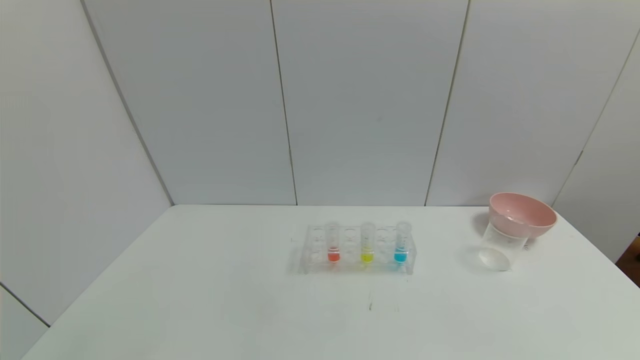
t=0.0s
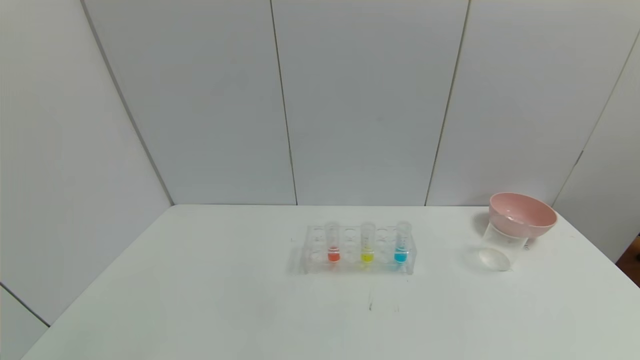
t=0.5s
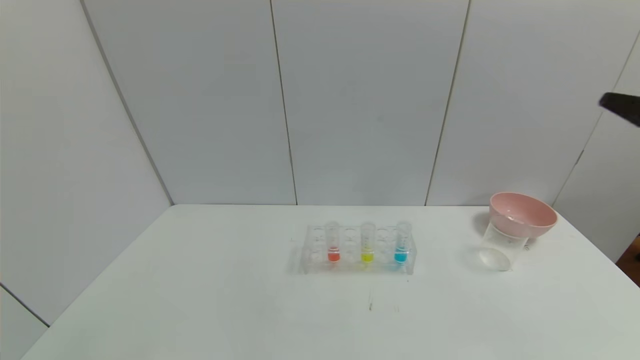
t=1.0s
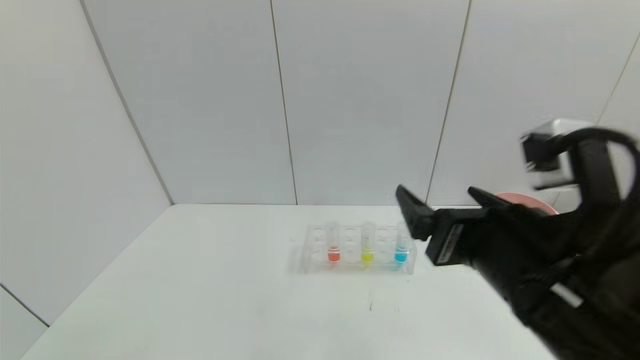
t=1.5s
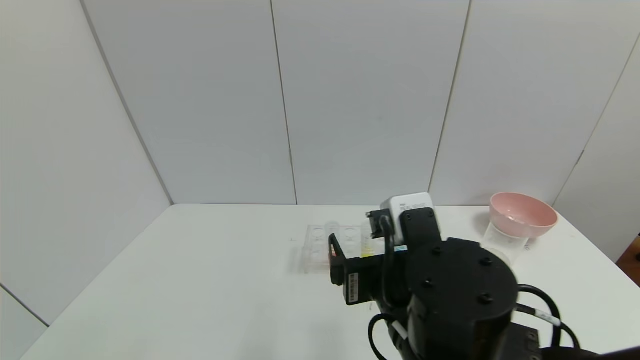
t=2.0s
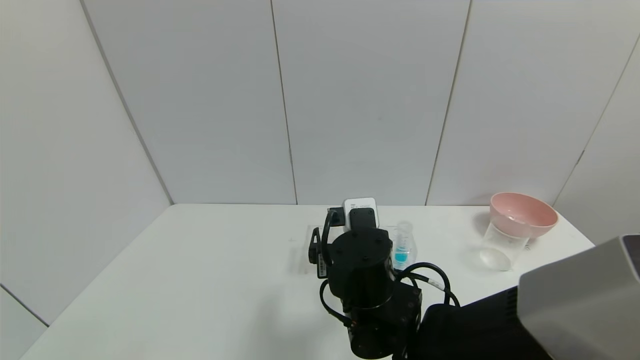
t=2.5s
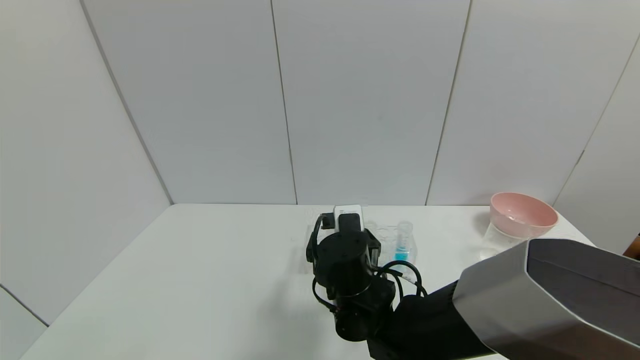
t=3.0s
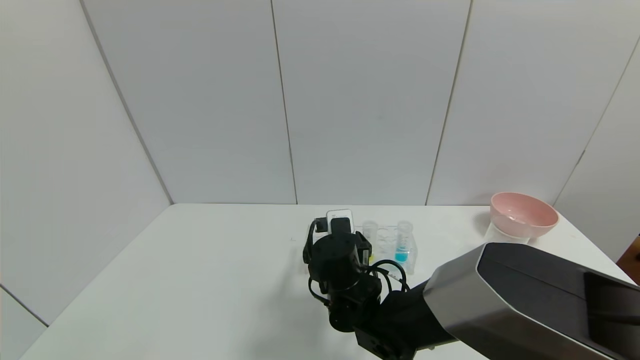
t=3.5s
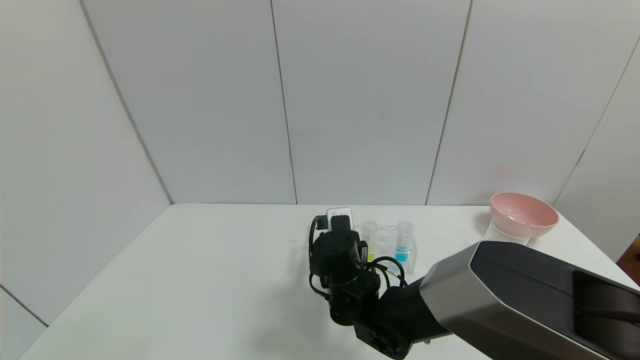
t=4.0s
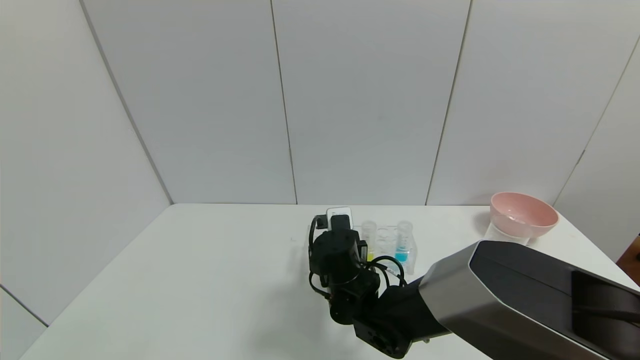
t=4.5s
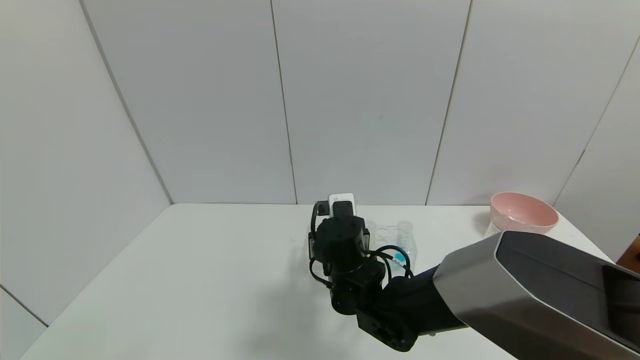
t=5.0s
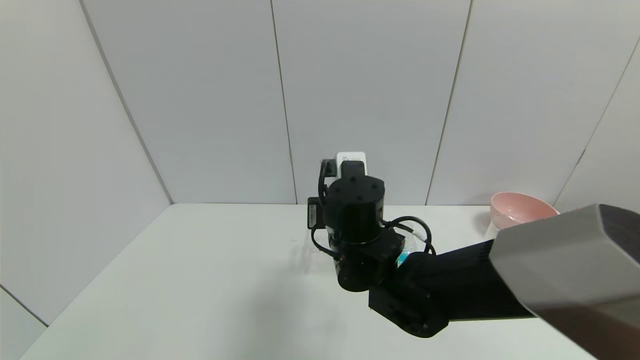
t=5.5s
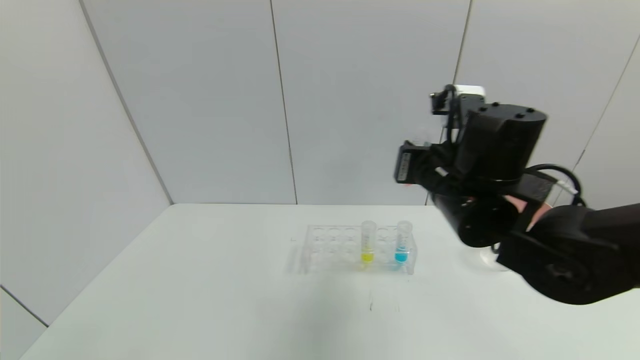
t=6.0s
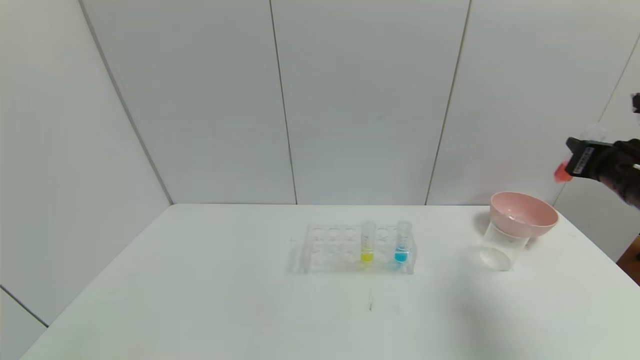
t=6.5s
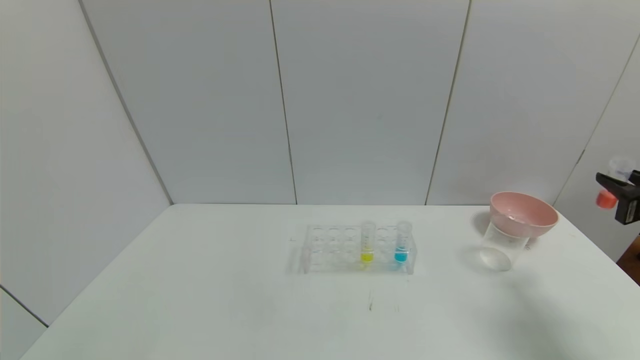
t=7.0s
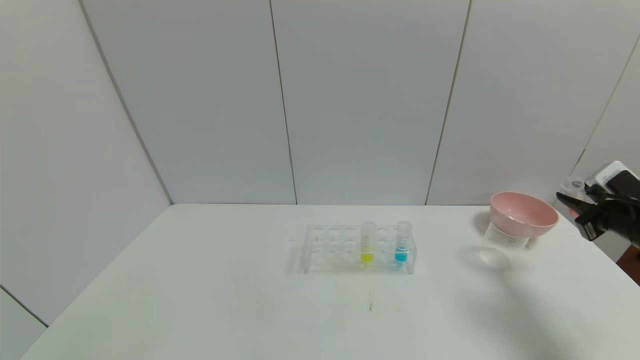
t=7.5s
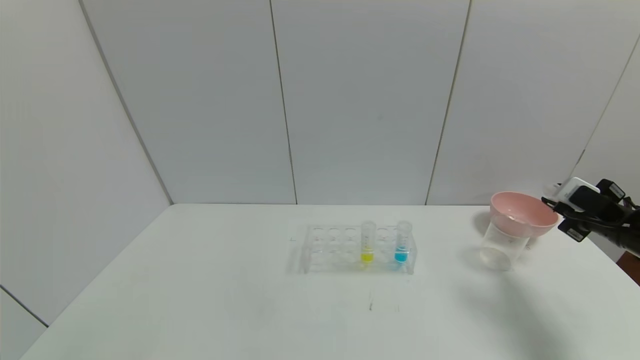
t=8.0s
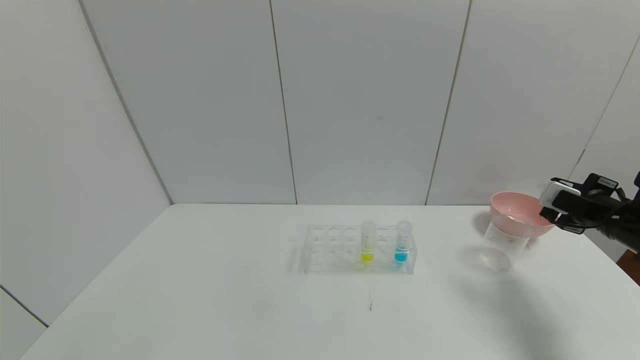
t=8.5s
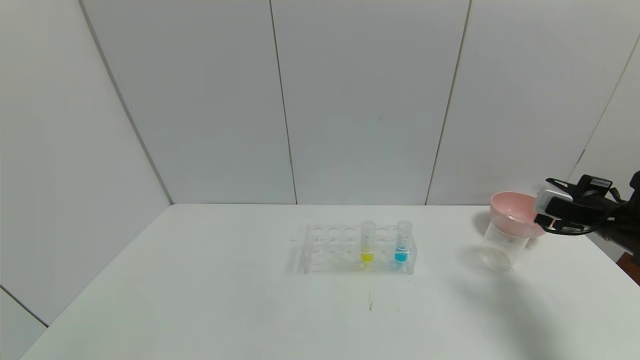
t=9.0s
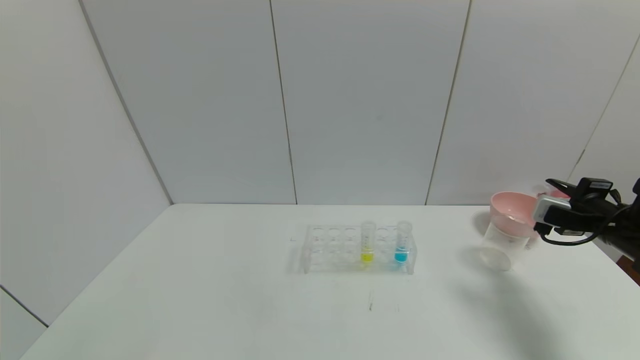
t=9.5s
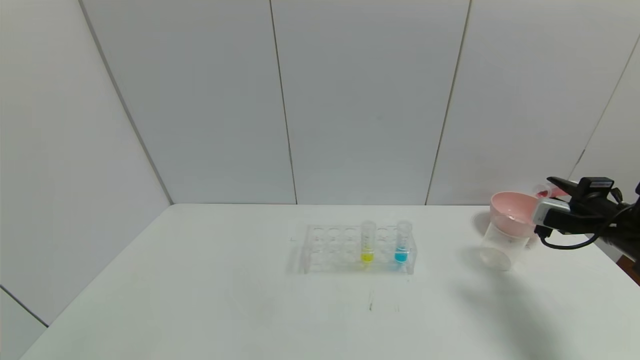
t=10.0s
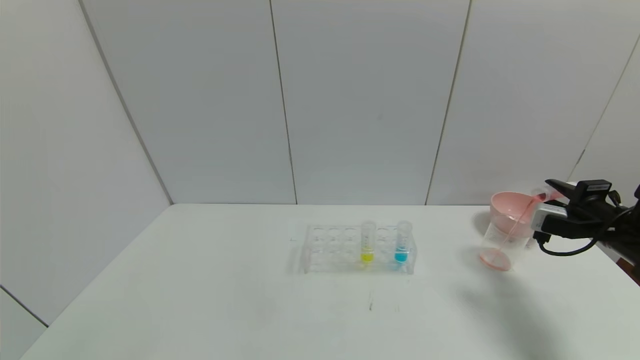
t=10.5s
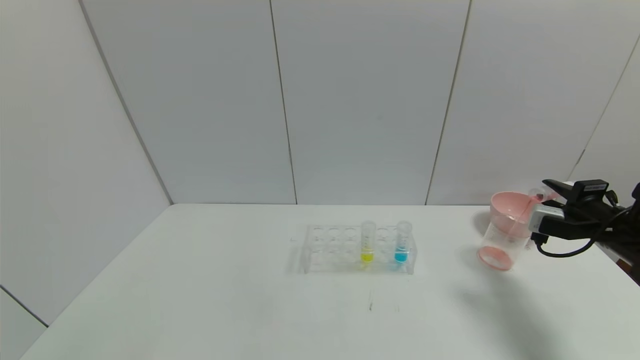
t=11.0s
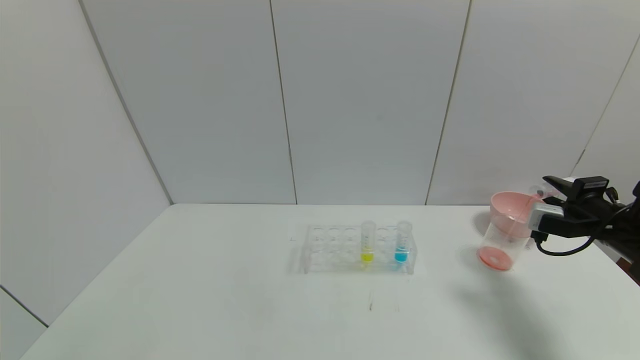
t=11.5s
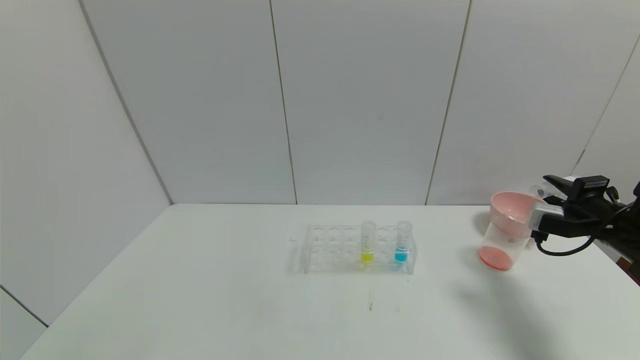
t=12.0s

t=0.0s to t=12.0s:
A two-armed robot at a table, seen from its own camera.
Task of the whole recording: pick up the test tube with yellow pigment and the test tube with red pigment by grippers and pour them into the beaker.
Step, t=0.0s to t=6.0s: Pick up the test tube containing the red reagent with right gripper.
t=0.0s to t=2.0s: The right gripper travels to the left and forward by roughly 35 cm.
t=2.0s to t=4.0s: The right gripper shifts about 20 cm forward, downward and to the left, and closes up.
t=4.0s to t=6.0s: The right gripper is displaced upward and to the right by some 25 cm.
t=6.0s to t=8.0s: The right gripper heads to the right, covering some 30 cm.
t=10.0s to t=12.0s: The grippers make only small movements.

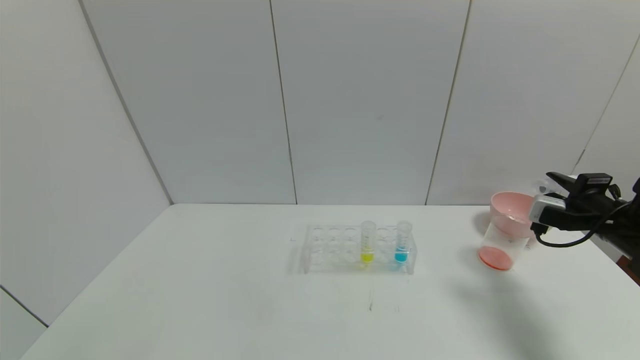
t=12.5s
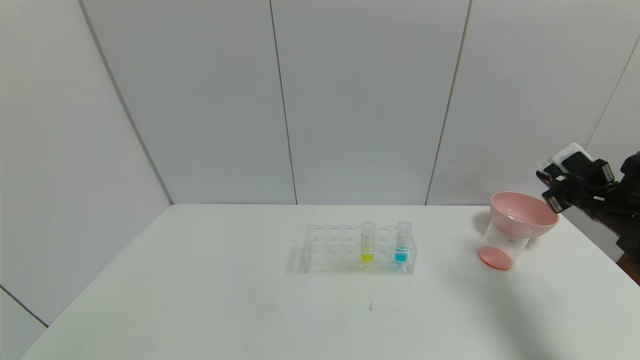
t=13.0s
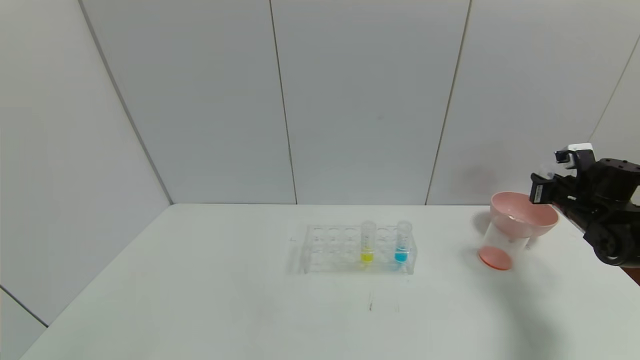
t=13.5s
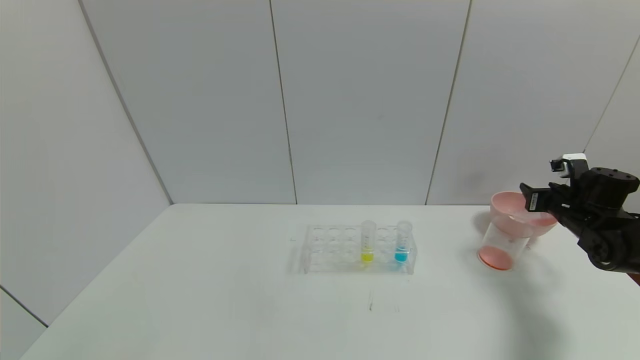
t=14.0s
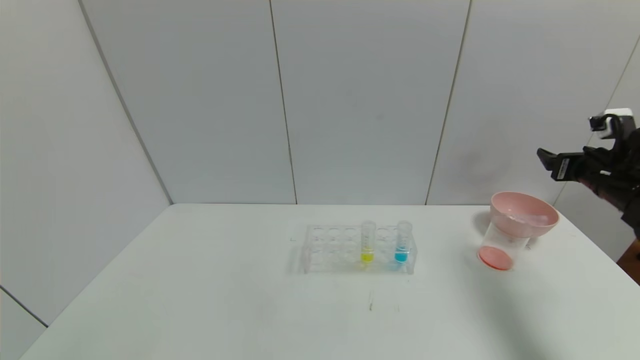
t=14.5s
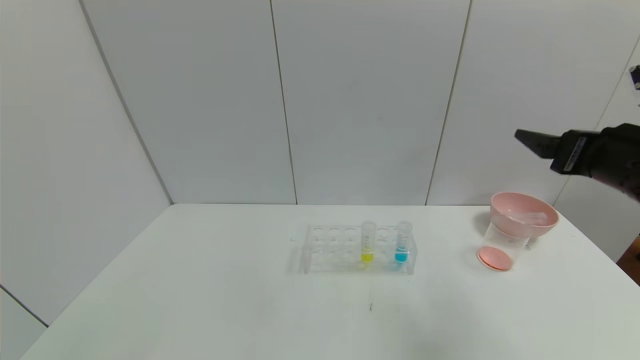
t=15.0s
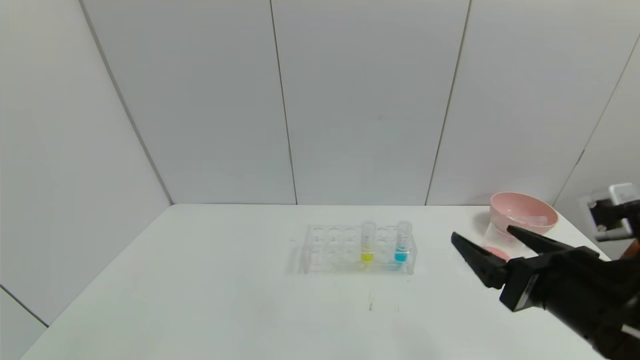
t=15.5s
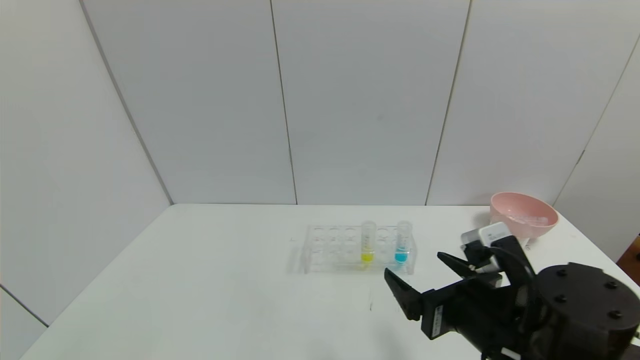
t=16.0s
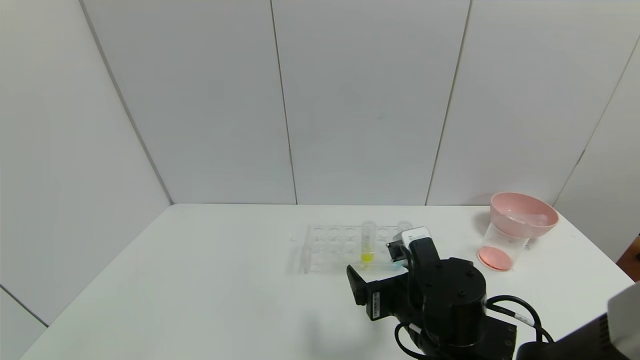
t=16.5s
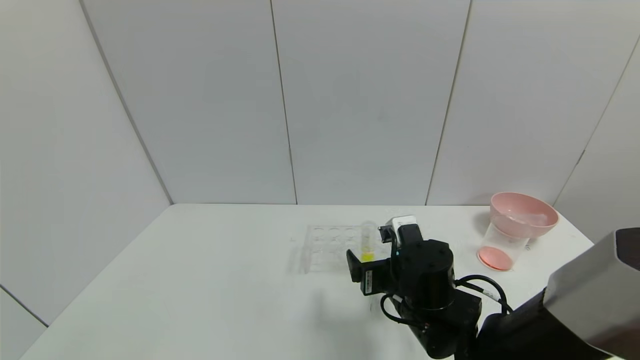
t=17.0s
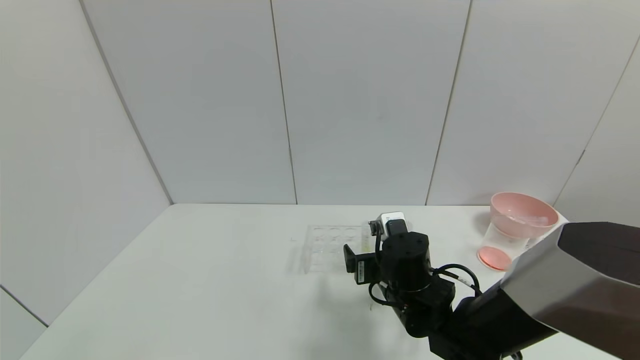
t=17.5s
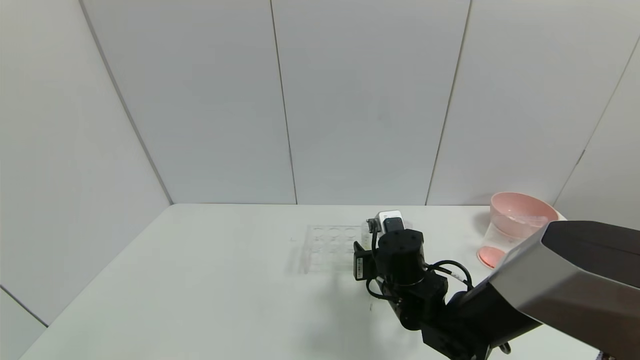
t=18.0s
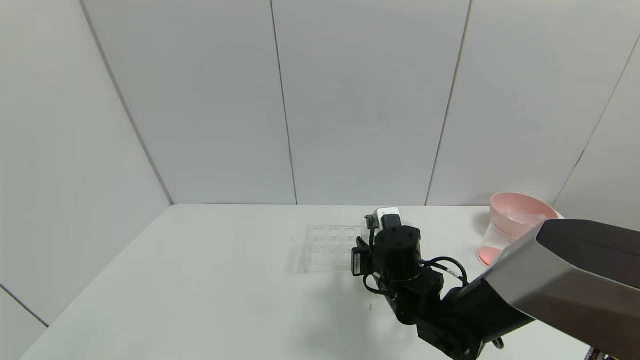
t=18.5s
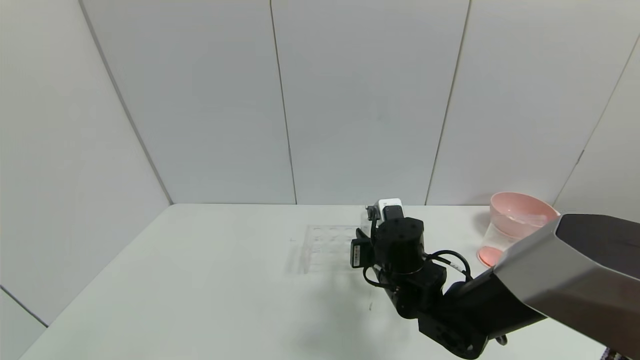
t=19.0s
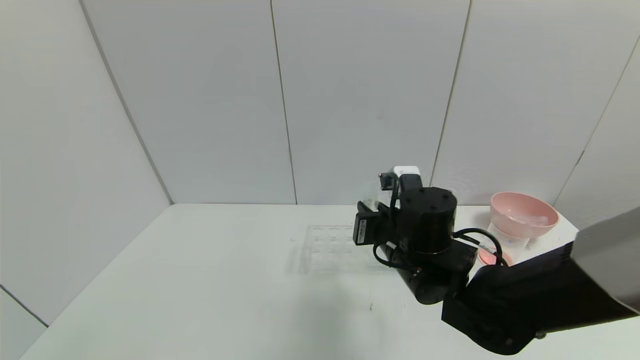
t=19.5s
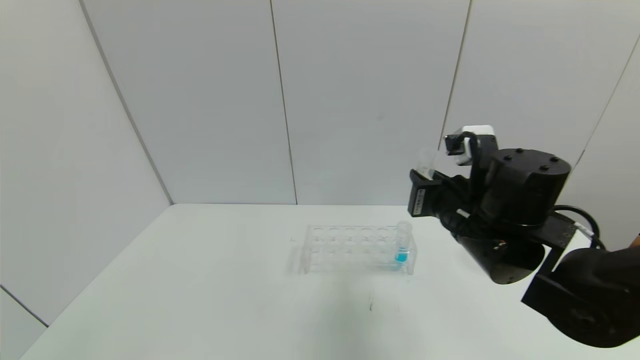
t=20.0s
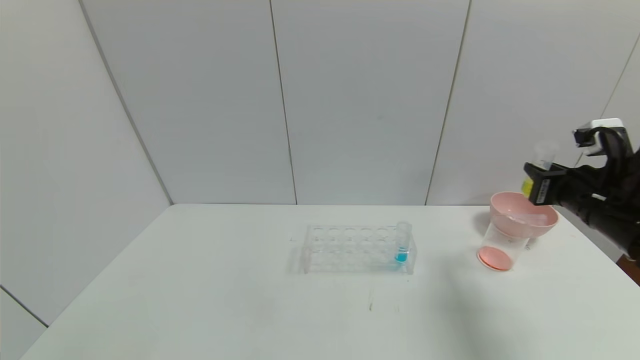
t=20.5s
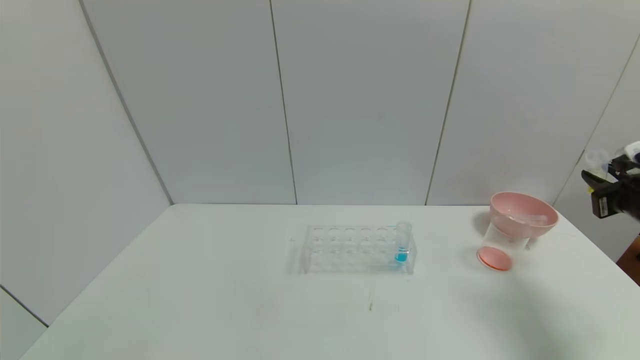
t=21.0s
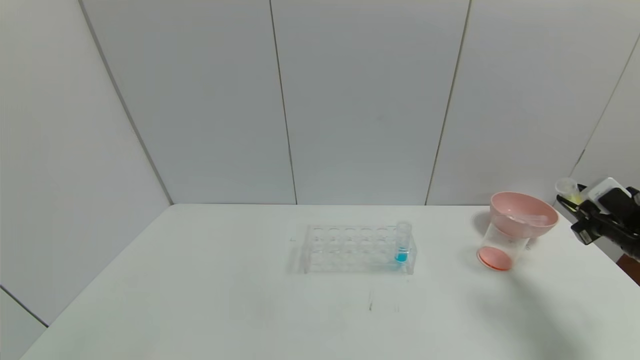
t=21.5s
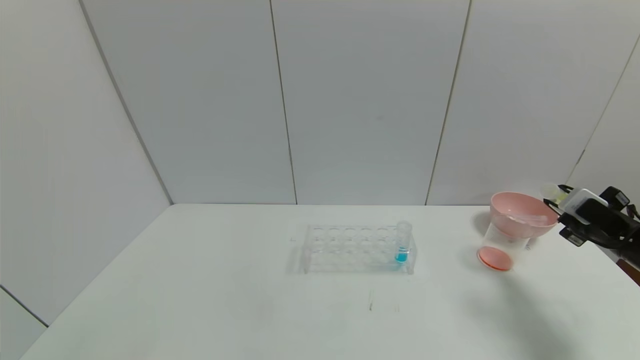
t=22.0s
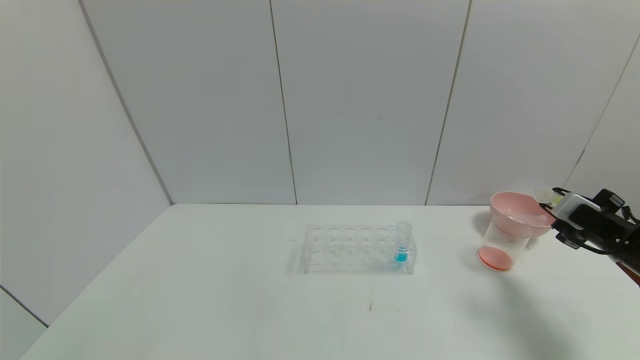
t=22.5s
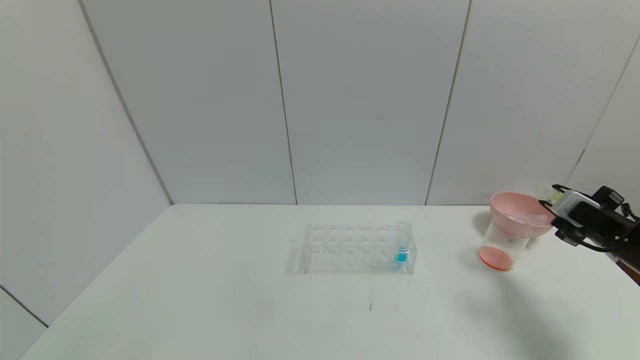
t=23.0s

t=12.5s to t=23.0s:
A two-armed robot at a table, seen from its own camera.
Task of the whole recording: pick up the test tube with yellow pigment and the test tube with red pigment by grippers and pour them into the beaker.
Step, t=13.5s to t=15.0s: Place the test tube into the bowl with right gripper.
Step, t=15.5s to t=20.0s: Pick up the test tube containing the yellow reagent with right gripper.
t=12.5s to t=14.5s: The right gripper is displaced upward by roughly 5 cm, and opens its fingers.
t=14.5s to t=16.5s: The right gripper travels to the left and backward by about 35 cm.
t=16.5s to t=19.0s: The right gripper travels forward by about 10 cm, and closes its fingers.
t=19.0s to t=21.0s: The right gripper travels to the right by about 35 cm.
t=21.0s to t=23.0s: The right gripper changes place by about 5 cm.
